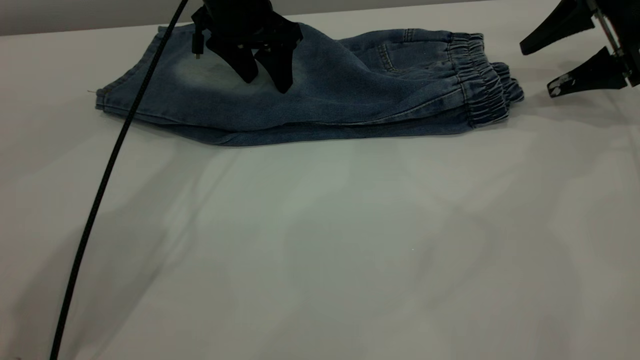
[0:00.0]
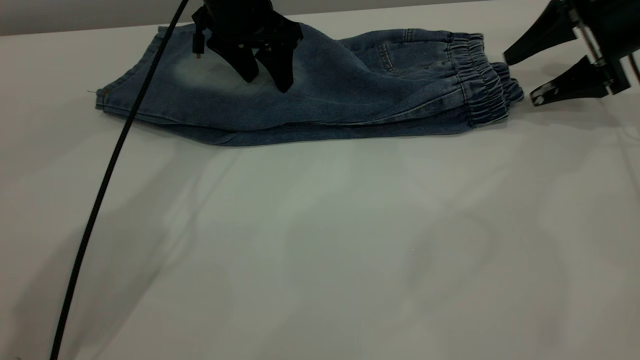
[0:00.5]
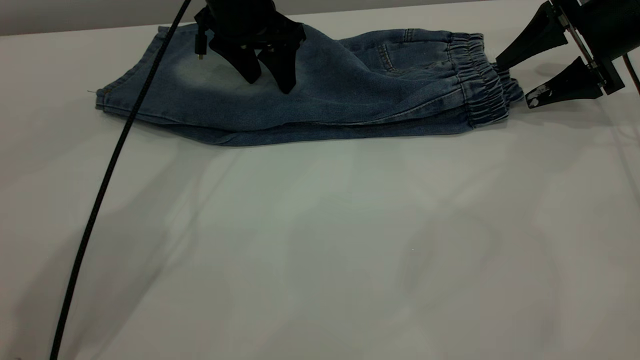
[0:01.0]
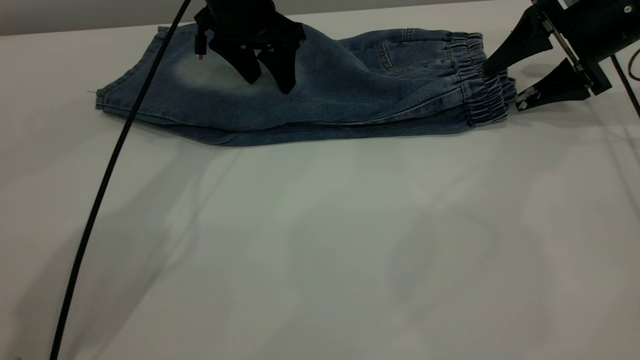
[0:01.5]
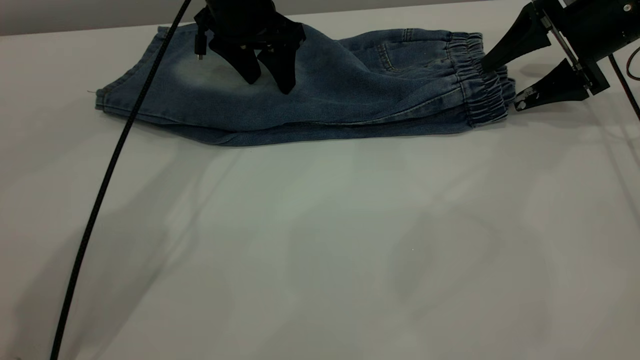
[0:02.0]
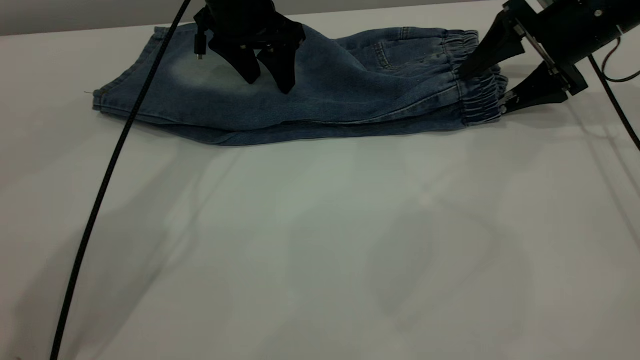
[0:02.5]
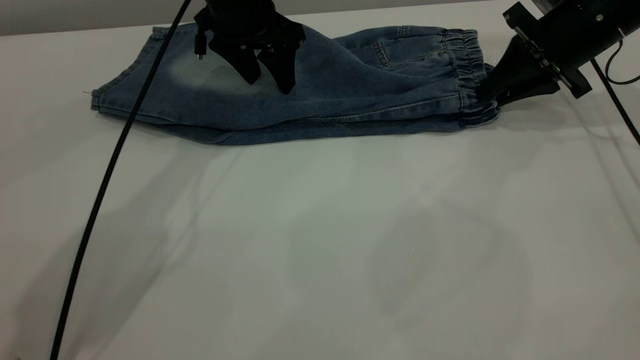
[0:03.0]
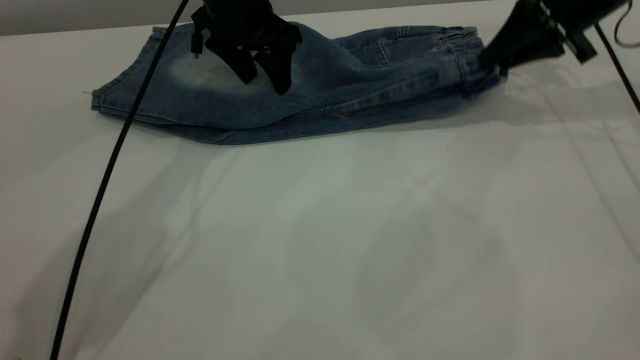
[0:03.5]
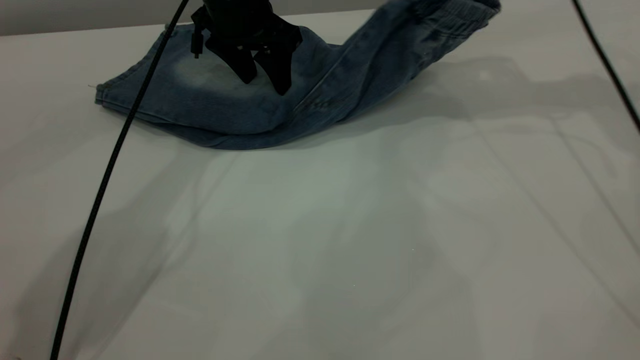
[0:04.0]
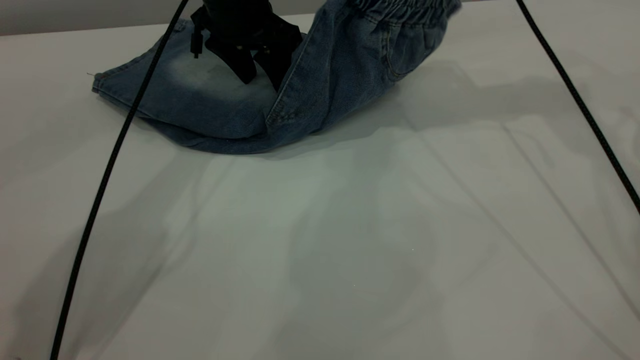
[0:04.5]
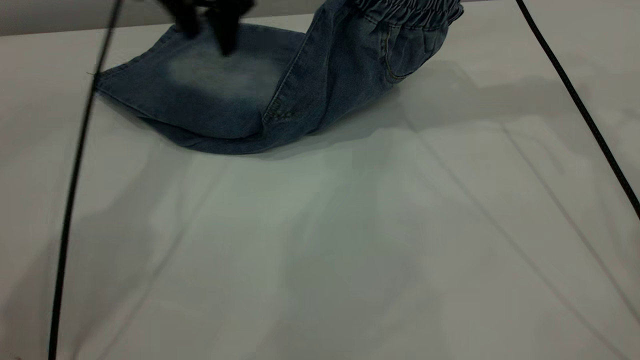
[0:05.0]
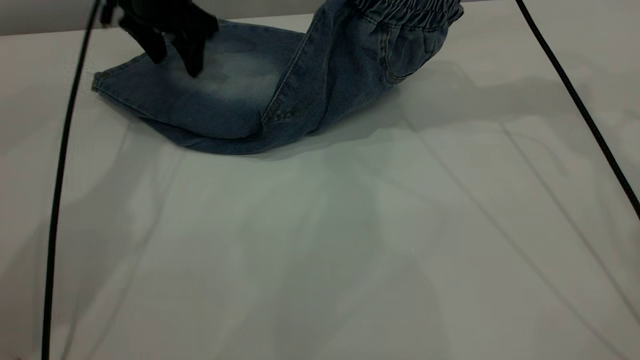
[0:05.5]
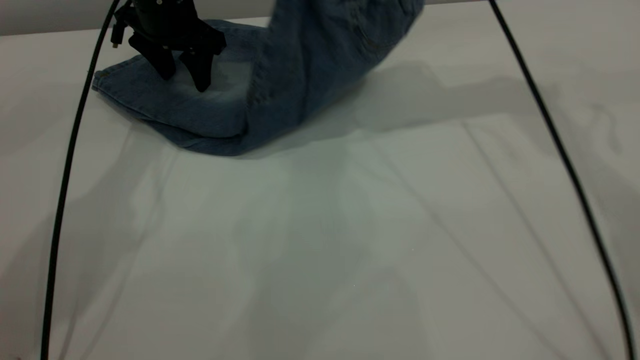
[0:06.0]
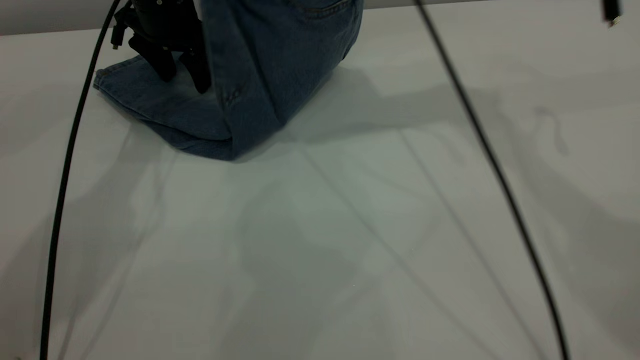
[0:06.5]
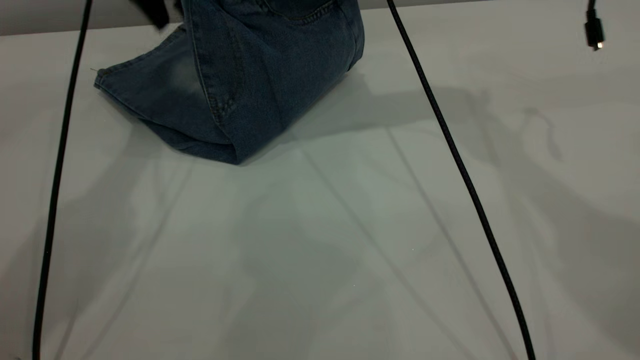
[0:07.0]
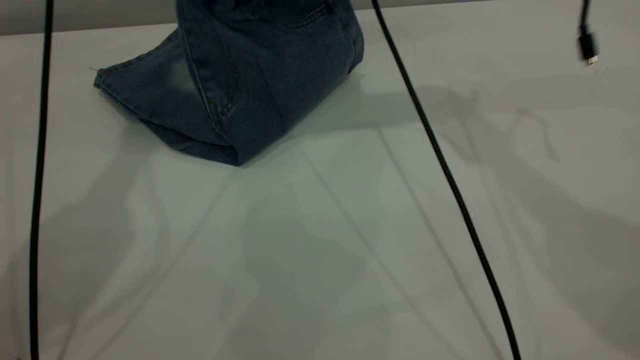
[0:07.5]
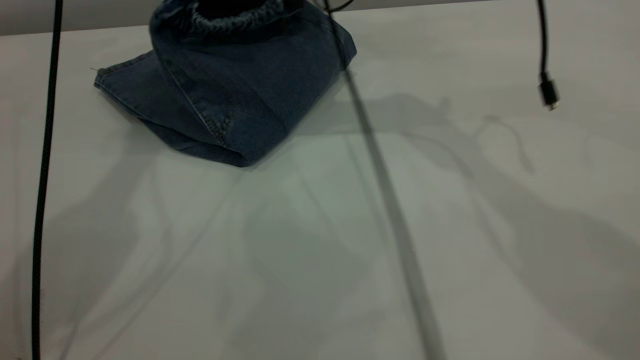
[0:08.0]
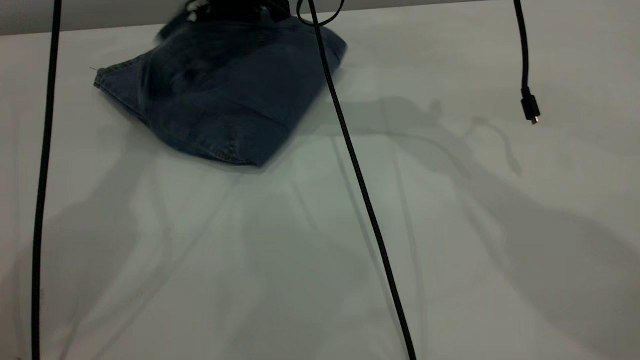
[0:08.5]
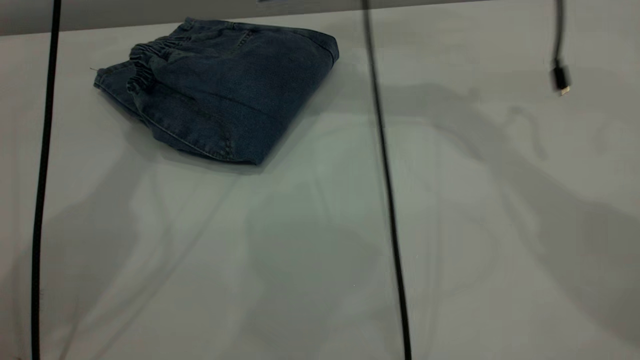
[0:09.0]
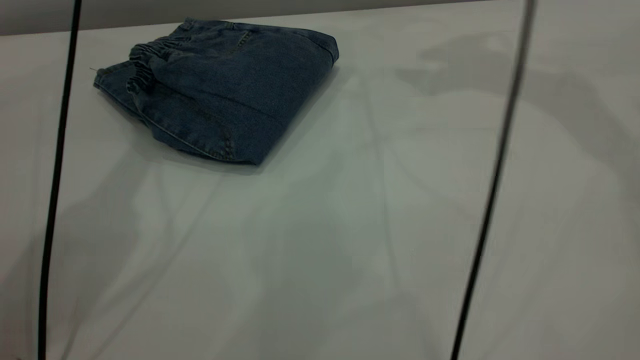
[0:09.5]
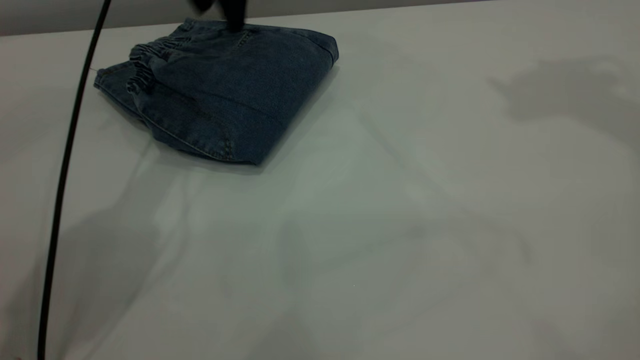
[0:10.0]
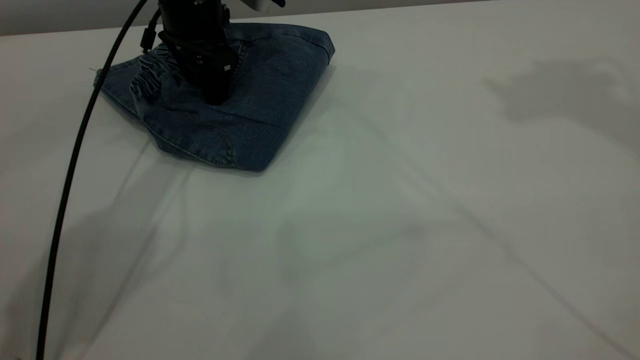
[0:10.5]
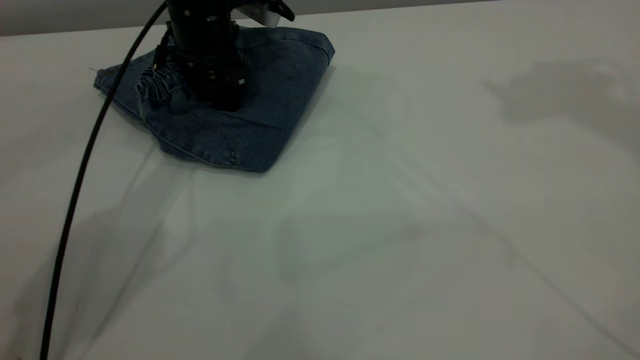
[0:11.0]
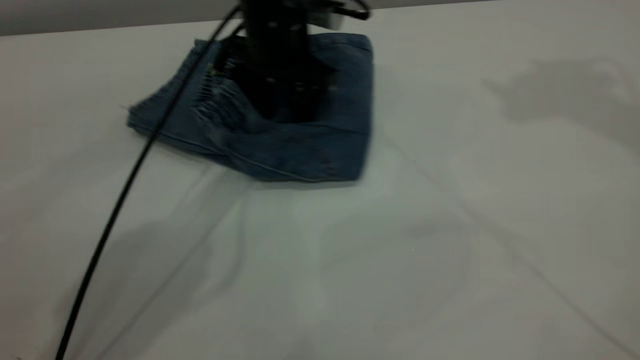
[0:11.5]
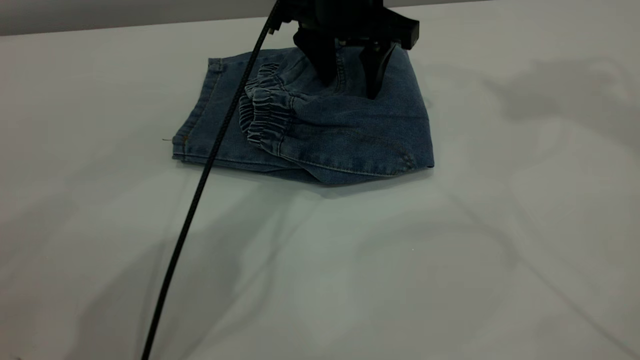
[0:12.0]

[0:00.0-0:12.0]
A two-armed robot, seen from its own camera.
Step, 0:00.0 to 0:09.0: Fold your pants from right to left.
0:00.0 to 0:02.0: The grippers move only a little.
0:02.0 to 0:04.0: The right gripper shifts about 15 cm upward and to the left, and closes up.
0:04.0 to 0:06.0: The right gripper is displaced to the left and upward by about 10 cm. The left gripper heads to the left, covering approximately 10 cm.
0:06.0 to 0:08.0: The left gripper goes about 20 cm upward, while the right gripper moves to the left and downward, some 15 cm.
0:08.0 to 0:10.0: The left gripper is displaced downward by about 15 cm, while the right gripper is displaced upward and to the right by some 40 cm, and opens up.
0:10.0 to 0:12.0: The left gripper moves to the right and backward, roughly 15 cm.

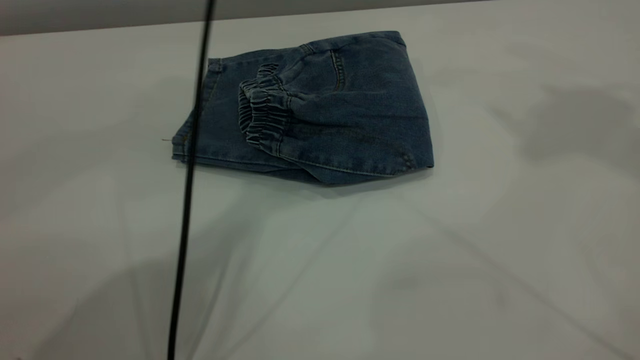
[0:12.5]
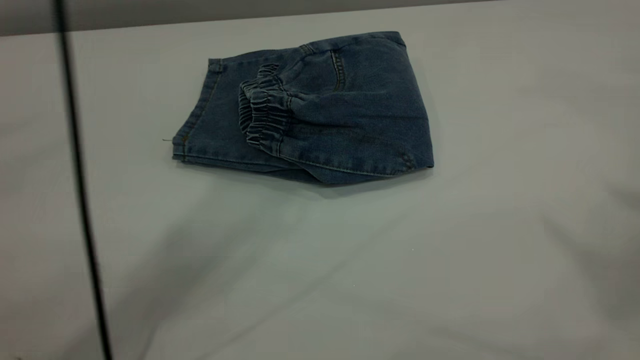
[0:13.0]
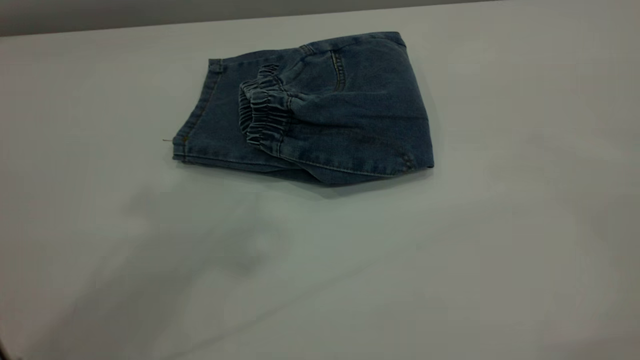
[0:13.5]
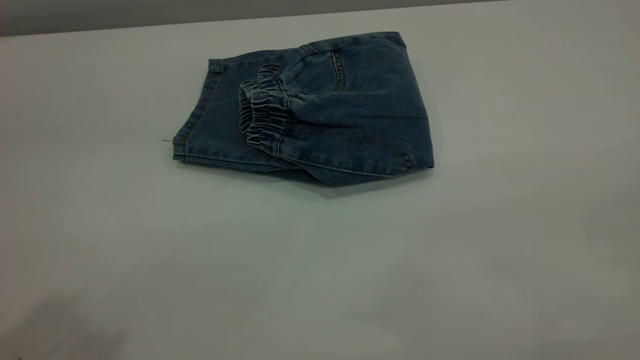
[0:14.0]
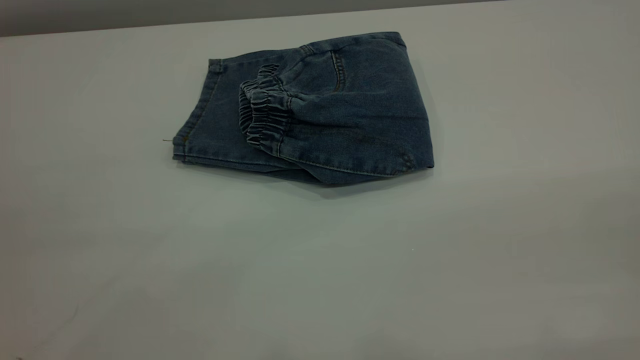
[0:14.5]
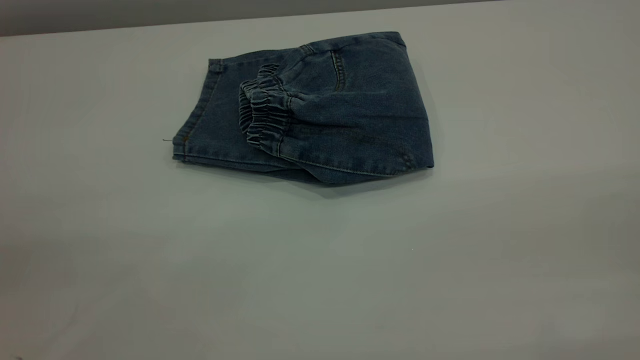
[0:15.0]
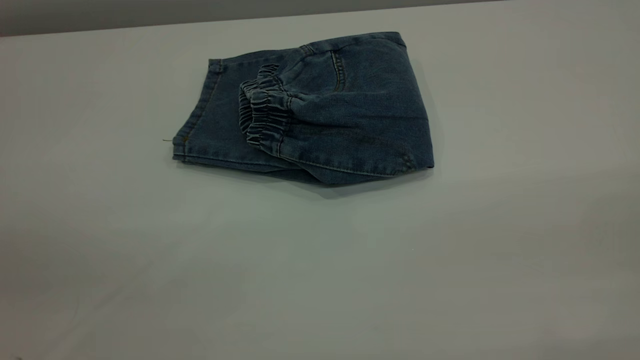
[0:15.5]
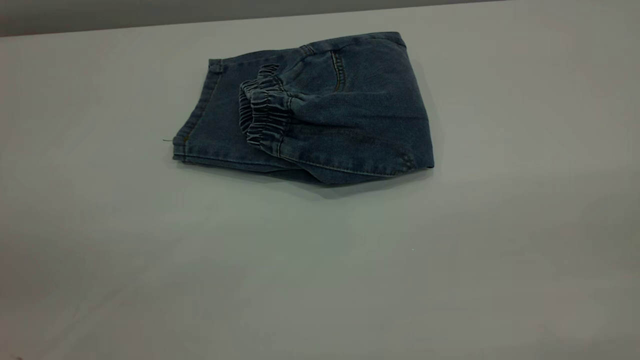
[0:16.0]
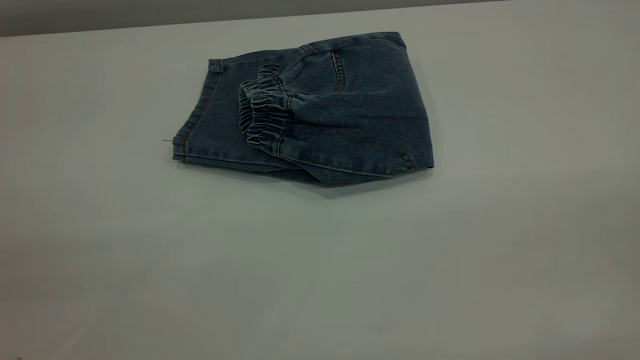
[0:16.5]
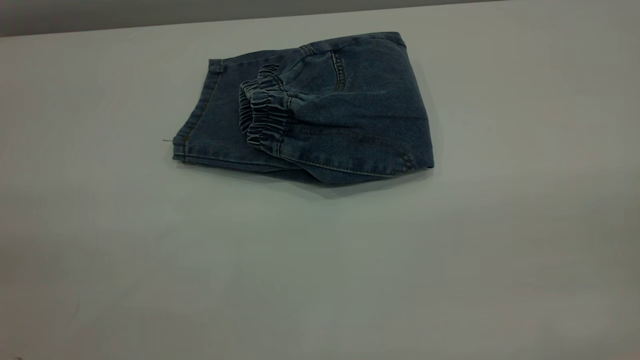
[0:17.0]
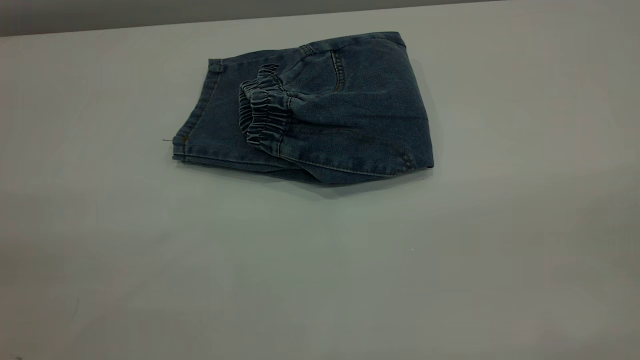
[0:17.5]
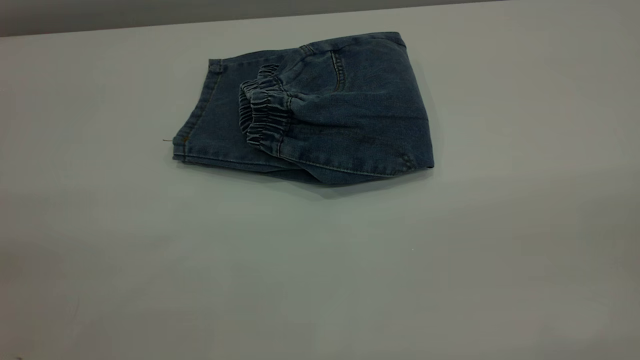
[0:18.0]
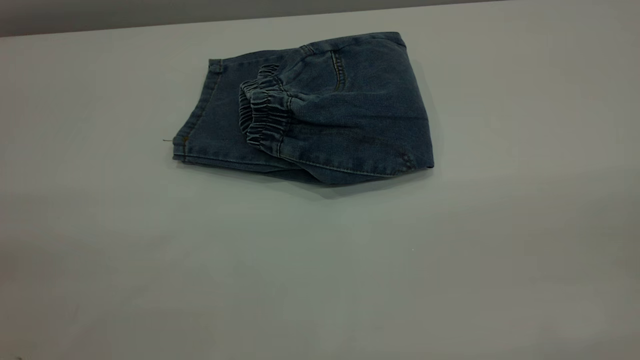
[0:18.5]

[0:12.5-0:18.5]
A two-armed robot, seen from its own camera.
0:12.5 to 0:14.5: The left gripper travels backward and to the left by some 50 cm.
